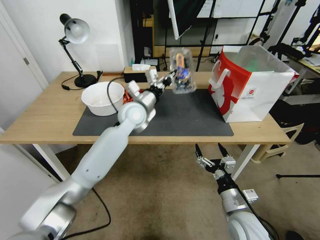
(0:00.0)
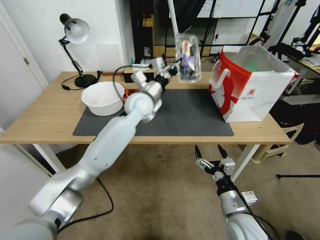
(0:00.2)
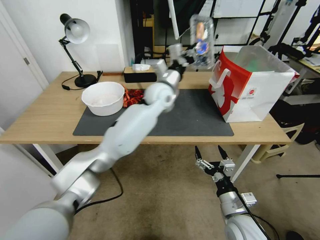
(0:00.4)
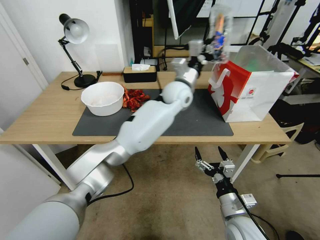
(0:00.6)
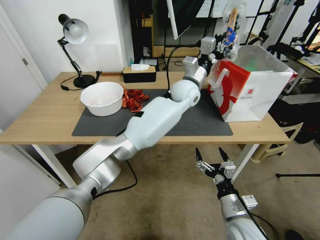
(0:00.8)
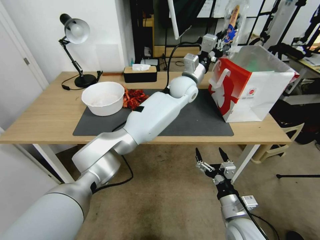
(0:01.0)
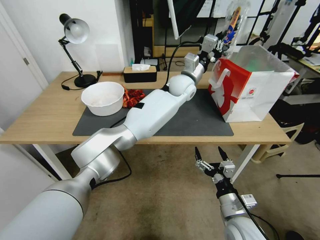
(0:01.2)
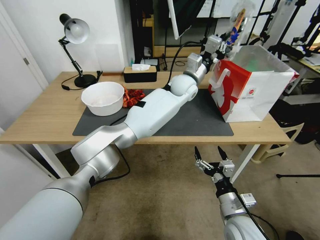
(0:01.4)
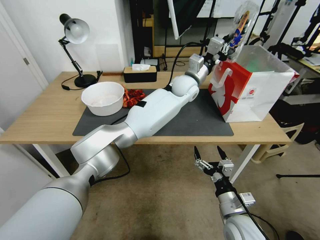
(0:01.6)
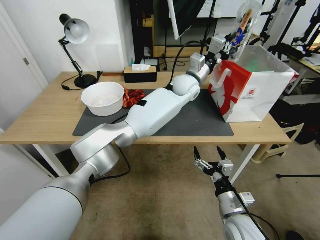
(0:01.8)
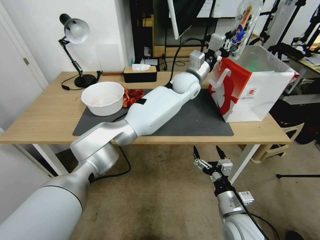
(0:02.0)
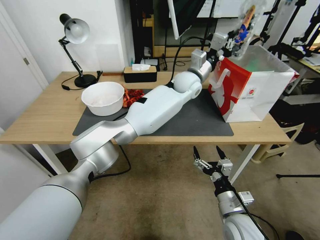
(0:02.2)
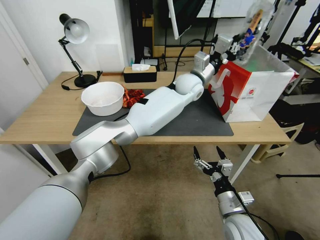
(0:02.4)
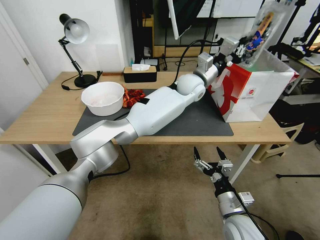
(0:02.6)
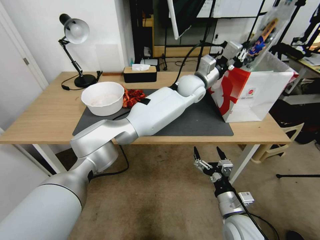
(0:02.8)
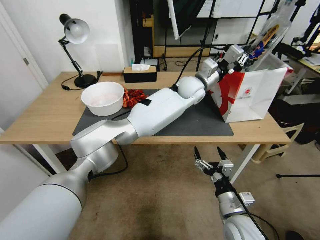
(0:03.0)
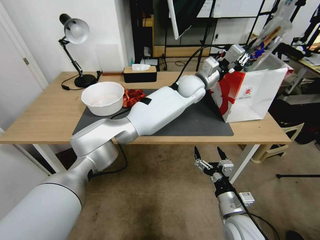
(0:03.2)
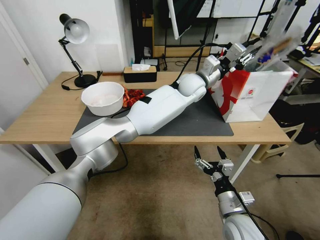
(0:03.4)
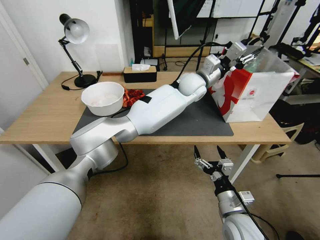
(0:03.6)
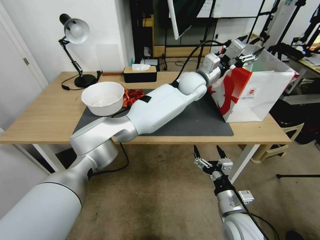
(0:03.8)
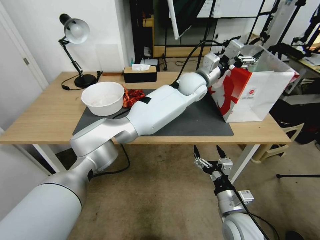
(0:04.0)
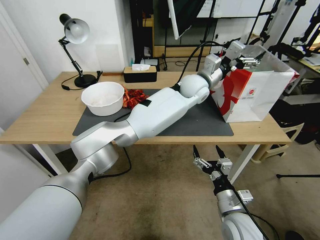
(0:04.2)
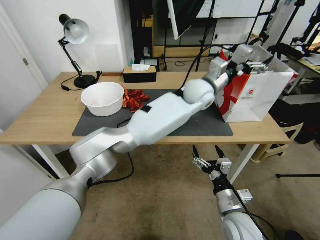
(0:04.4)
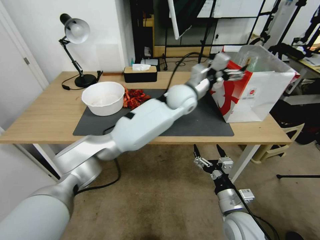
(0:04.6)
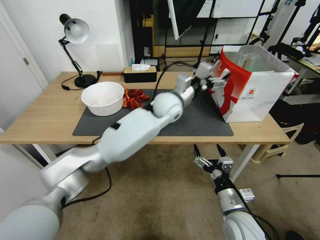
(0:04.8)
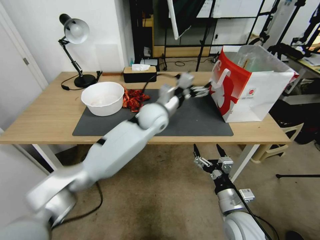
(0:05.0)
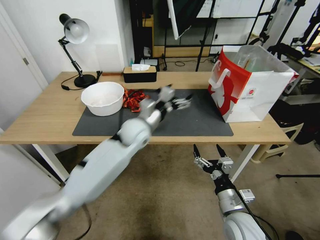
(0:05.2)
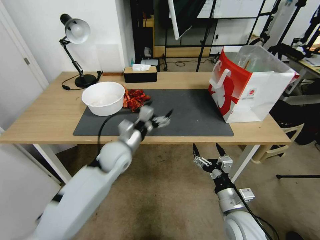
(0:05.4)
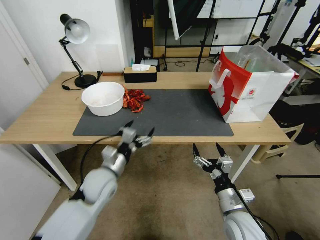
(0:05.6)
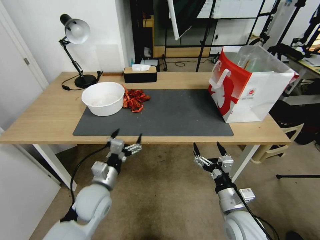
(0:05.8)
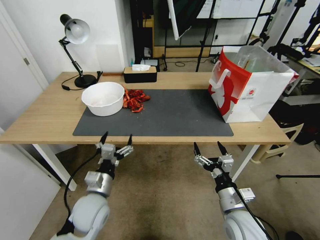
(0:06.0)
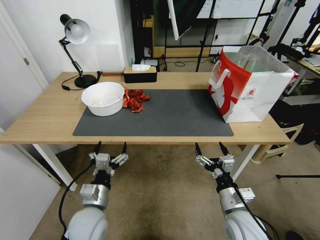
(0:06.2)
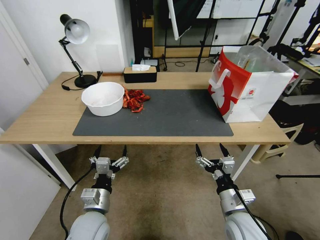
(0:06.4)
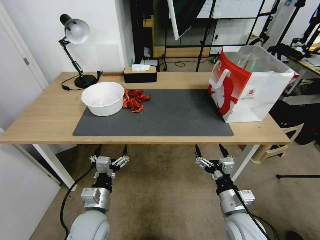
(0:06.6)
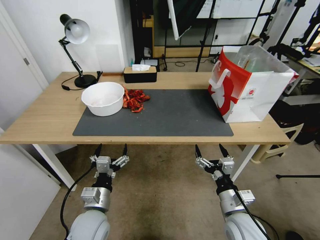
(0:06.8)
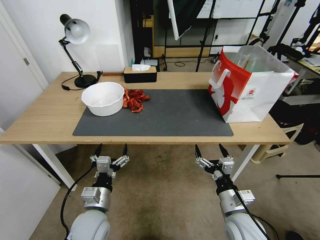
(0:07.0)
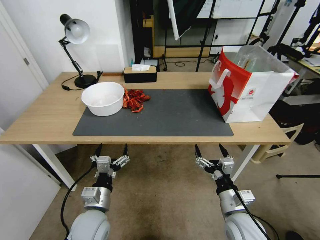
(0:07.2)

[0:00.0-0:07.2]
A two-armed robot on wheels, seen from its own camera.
Task of the whole recording: Close the takeout container lid, then place the container into the takeout bag.
0:00.0 to 0:01.4: The left gripper moves to the right and forward, about 20 cm.
0:01.4 to 0:02.8: There are only small adjustments of the grippers.
0:02.8 to 0:04.4: The left gripper shifts by about 5 cm, and opens.
0:04.4 to 0:05.8: The left gripper moves to the left, backward and downward, approximately 50 cm.
0:05.8 to 0:07.2: The left gripper shifts approximately 5 cm backward.

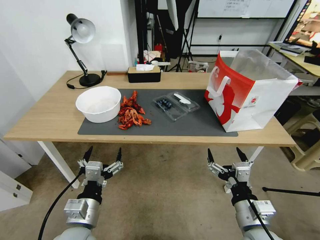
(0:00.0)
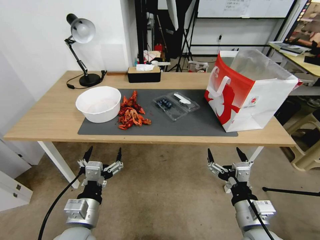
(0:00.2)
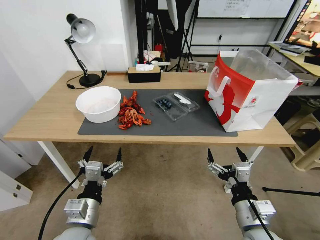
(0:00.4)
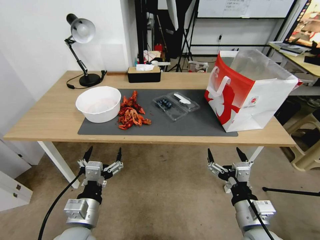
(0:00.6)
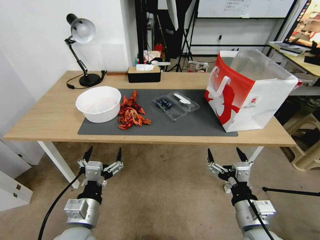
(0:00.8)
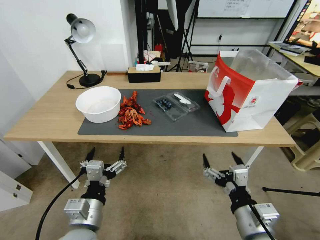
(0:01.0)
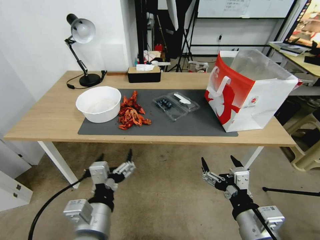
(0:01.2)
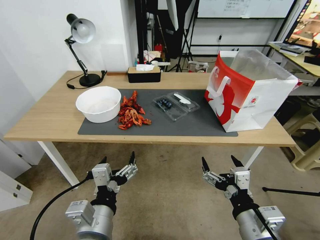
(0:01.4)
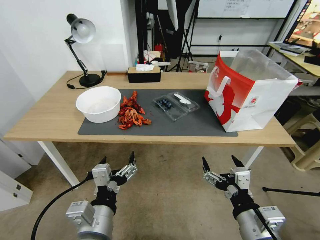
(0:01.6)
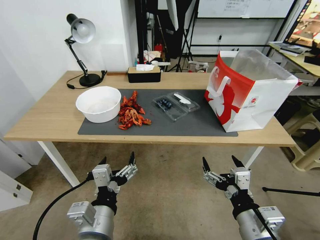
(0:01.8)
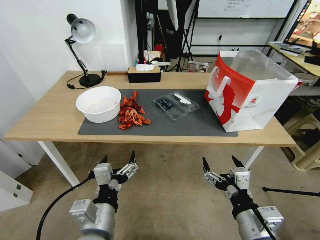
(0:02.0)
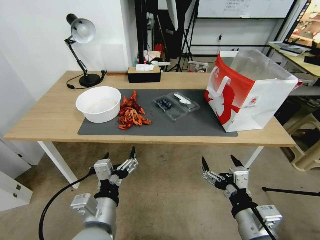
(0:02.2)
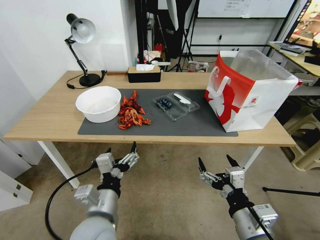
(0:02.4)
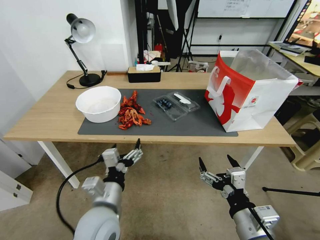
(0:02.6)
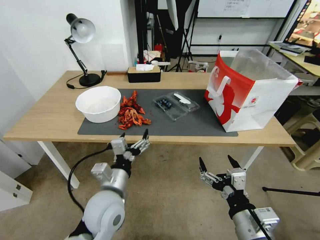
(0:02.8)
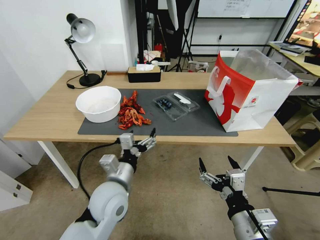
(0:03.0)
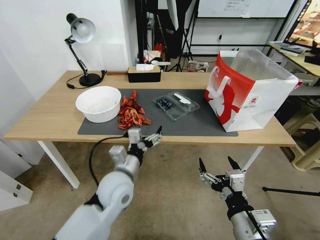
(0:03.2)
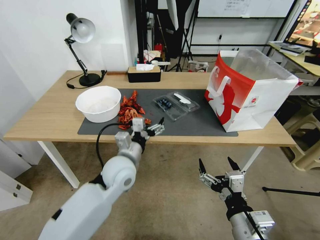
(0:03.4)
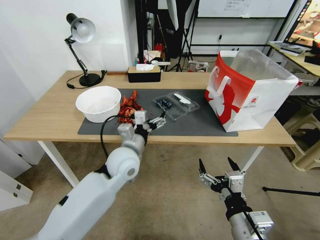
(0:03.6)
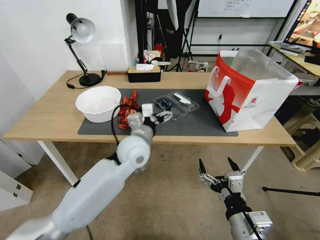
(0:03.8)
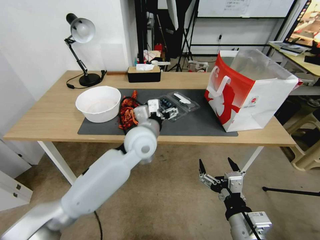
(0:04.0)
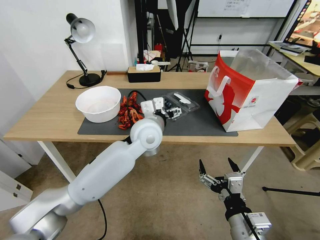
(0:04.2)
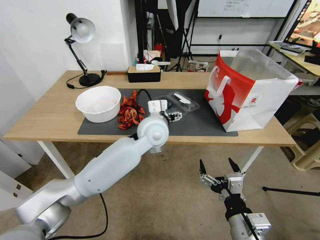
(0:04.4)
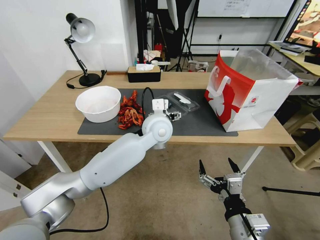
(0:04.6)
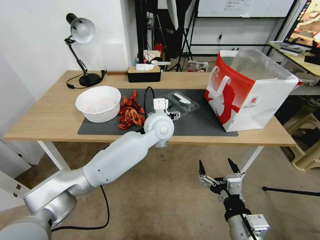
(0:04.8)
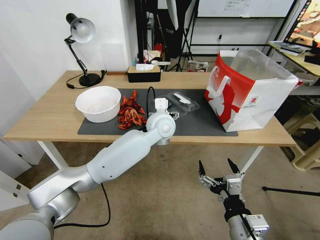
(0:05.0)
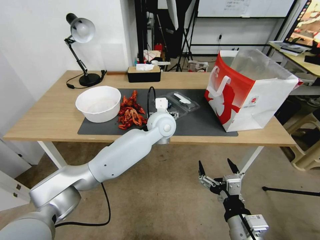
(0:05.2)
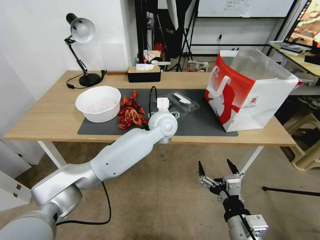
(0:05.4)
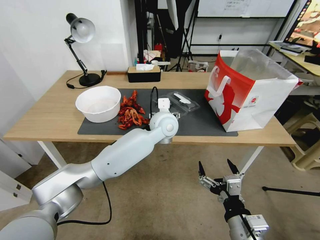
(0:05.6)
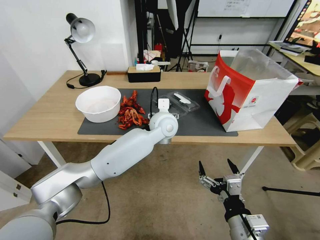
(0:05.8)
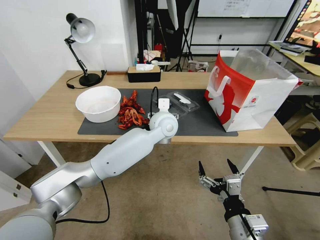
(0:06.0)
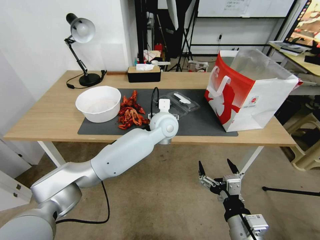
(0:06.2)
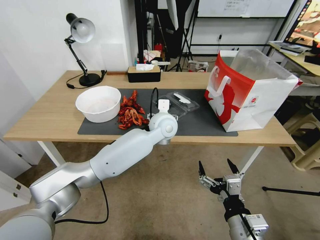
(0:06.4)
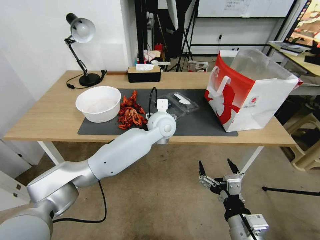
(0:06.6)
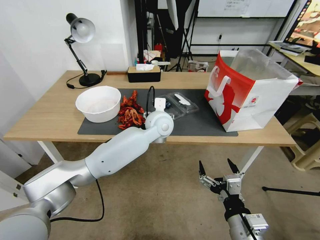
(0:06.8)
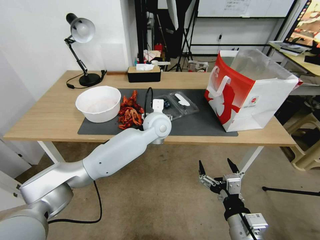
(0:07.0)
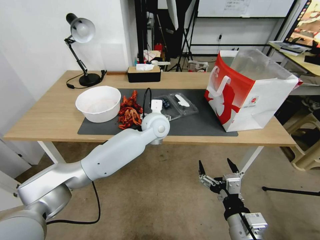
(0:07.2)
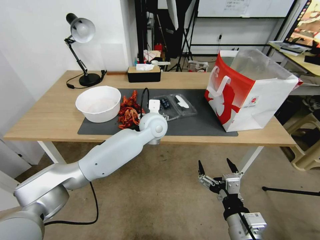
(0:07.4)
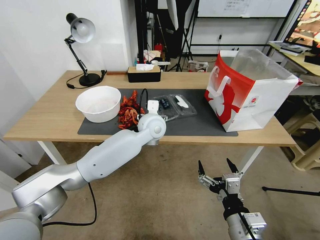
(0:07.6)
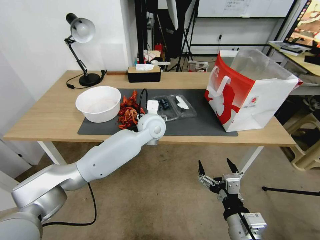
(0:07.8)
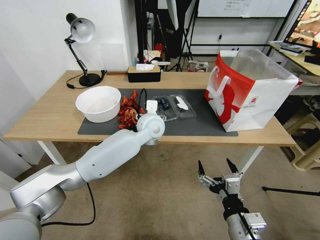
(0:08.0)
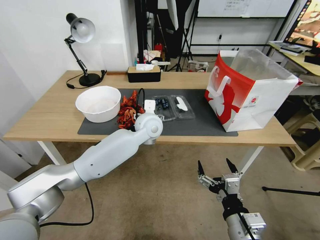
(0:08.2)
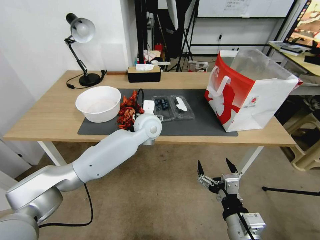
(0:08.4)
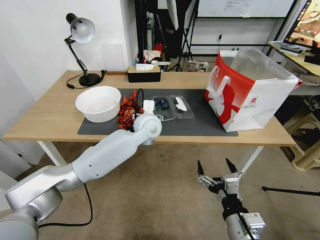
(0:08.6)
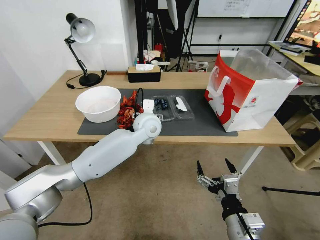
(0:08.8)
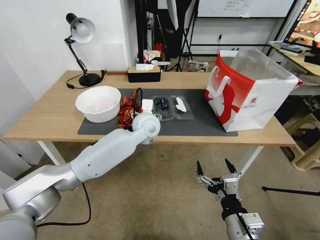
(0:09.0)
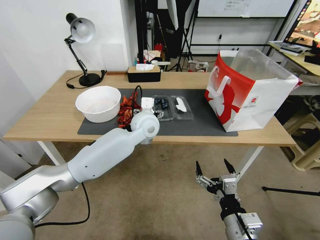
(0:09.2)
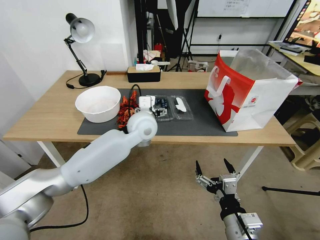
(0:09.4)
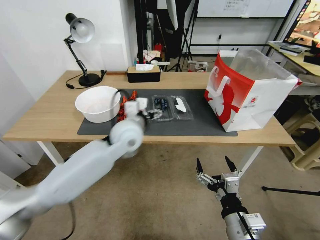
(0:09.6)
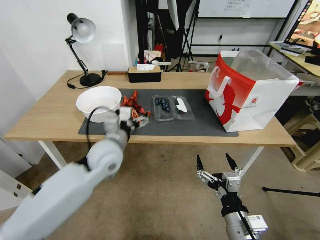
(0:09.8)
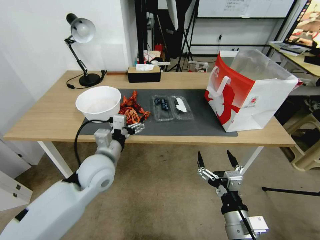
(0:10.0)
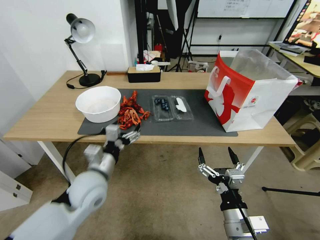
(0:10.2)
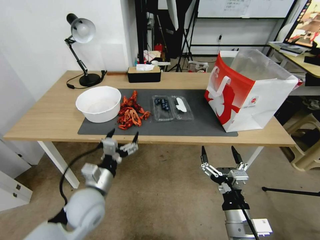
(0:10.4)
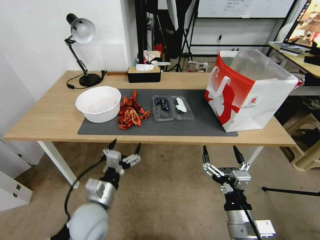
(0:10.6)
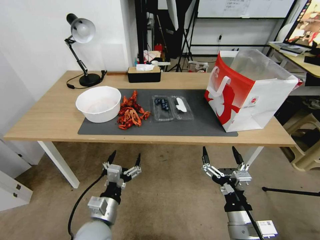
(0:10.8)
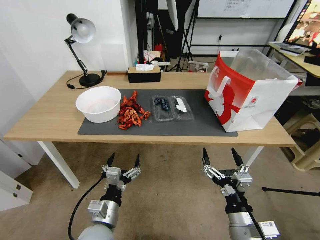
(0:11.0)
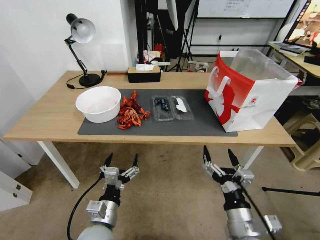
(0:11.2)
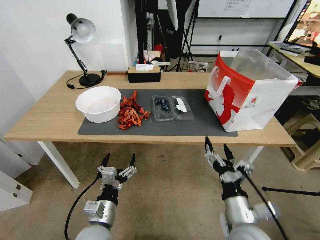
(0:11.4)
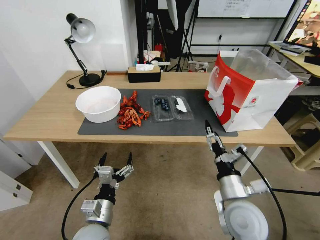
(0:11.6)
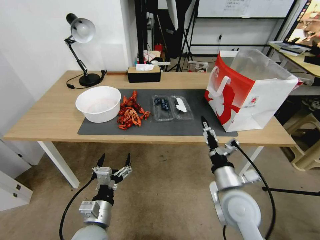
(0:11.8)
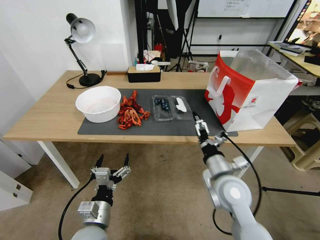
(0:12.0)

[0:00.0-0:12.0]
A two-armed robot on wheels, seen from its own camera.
Task of the whole recording: Close the takeout container lid, then place the container into the takeout bag.
0:01.6 to 0:03.0: The left gripper goes some 15 cm forward.
0:03.0 to 0:04.4: The left gripper moves forward, to the right and upward, some 20 cm.
0:04.4 to 0:06.0: The left gripper heads forward, covering roughly 5 cm.
0:06.0 to 0:09.0: There are only small adjustments of the grippers.
0:09.0 to 0:10.4: The left gripper goes about 25 cm backward and to the left.
0:10.4 to 0:12.0: The left gripper is displaced backward and downward by approximately 15 cm. Meanwhile the right gripper moves forward, roughly 15 cm.

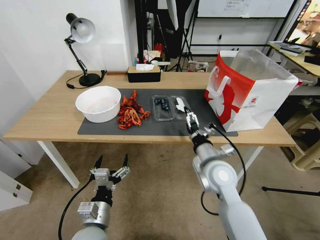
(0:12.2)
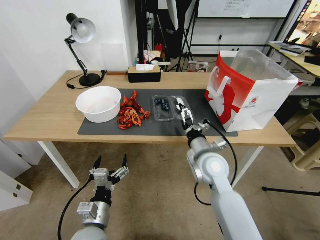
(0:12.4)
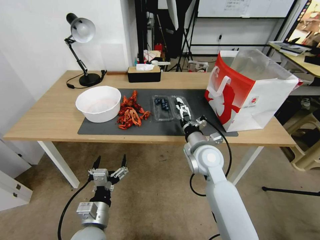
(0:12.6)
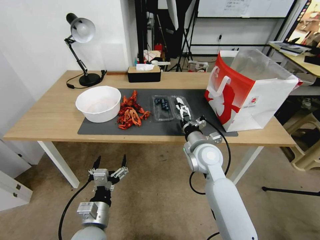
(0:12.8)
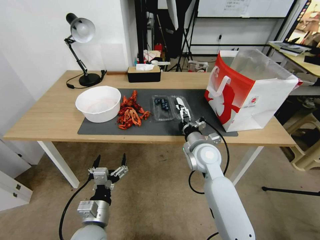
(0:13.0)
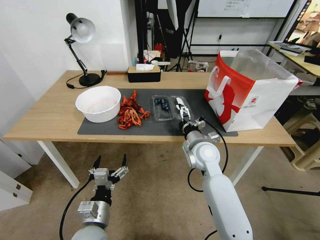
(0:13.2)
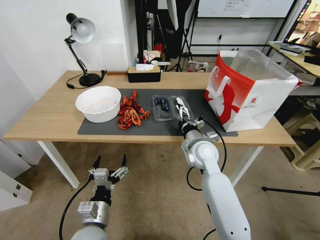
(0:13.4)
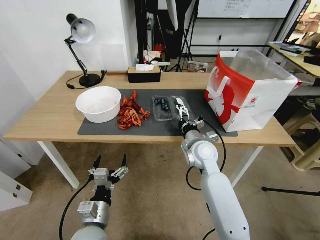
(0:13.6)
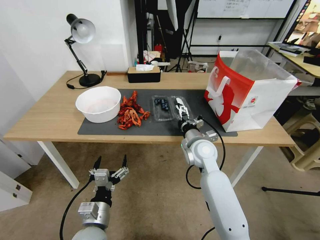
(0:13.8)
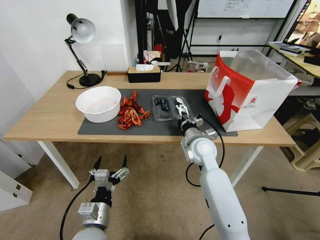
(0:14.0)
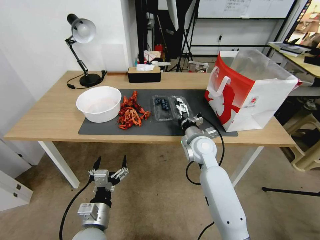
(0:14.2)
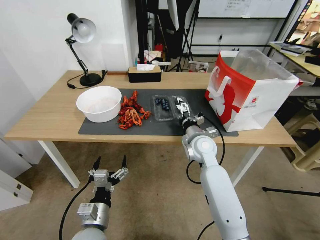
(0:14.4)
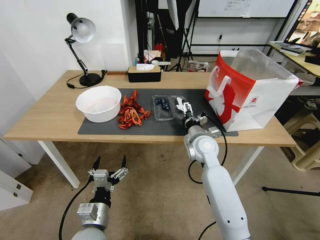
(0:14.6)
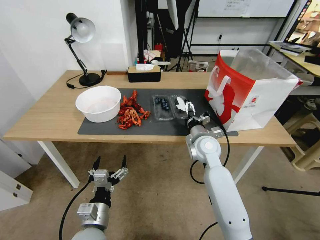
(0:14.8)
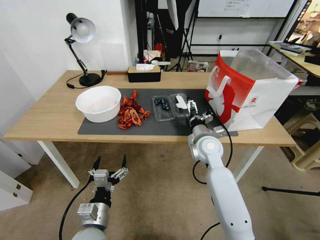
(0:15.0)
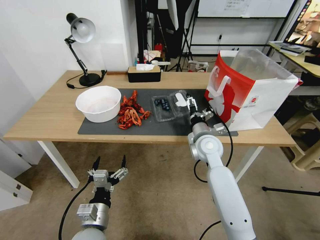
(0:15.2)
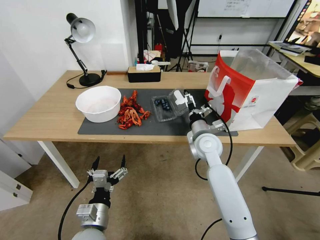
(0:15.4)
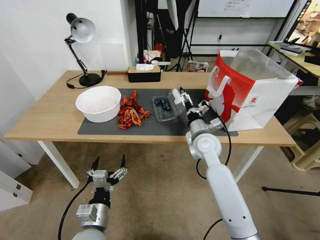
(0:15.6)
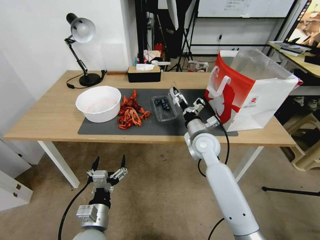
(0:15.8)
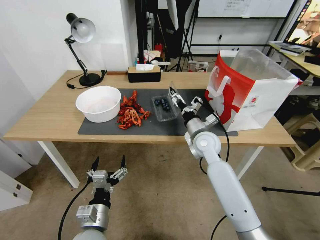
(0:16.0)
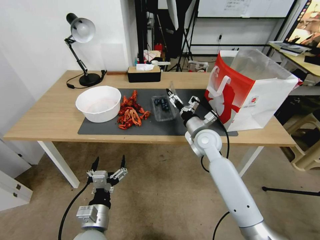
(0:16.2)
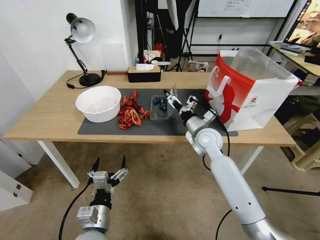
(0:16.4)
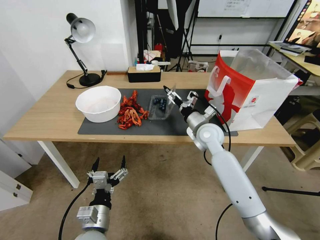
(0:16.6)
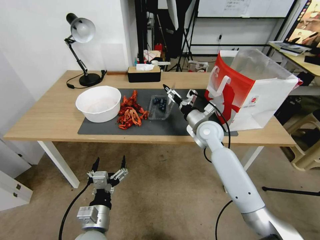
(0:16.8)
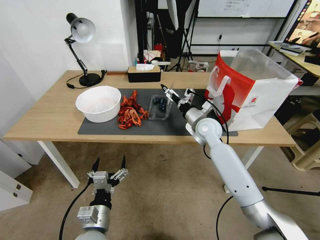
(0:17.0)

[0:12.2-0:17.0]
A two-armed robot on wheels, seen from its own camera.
Task of the whole recording: Close the takeout container lid, then place the container into the takeout bag.
0:12.2 to 0:13.8: The right gripper shifts approximately 10 cm forward.
0:13.8 to 0:15.4: The grippers make only small movements.
0:15.4 to 0:17.0: The right gripper moves forward, approximately 5 cm.
